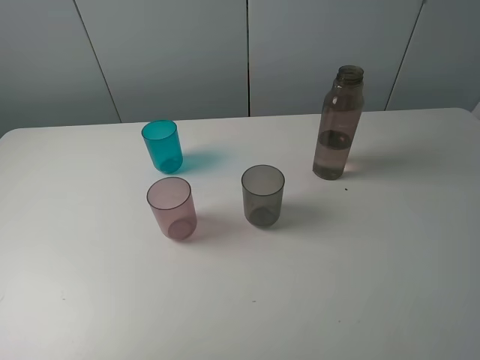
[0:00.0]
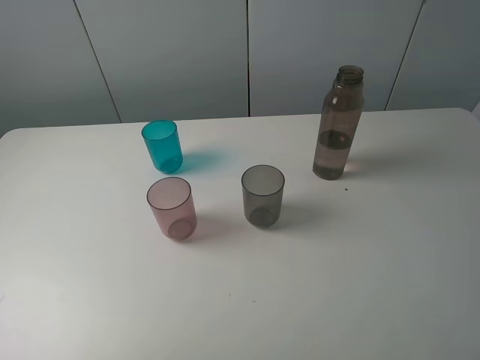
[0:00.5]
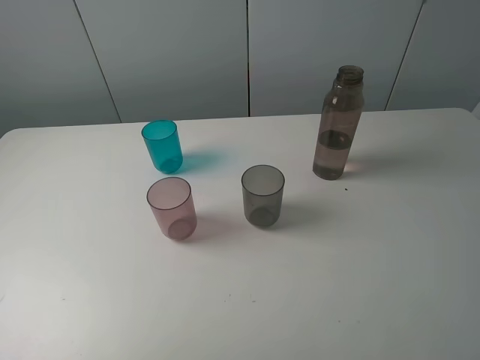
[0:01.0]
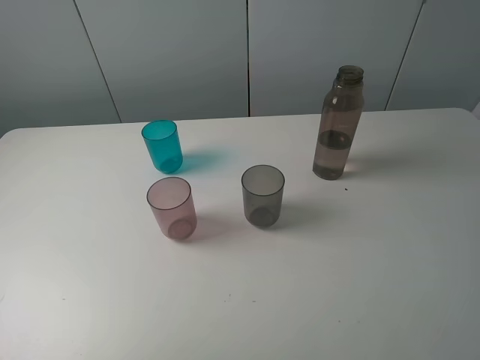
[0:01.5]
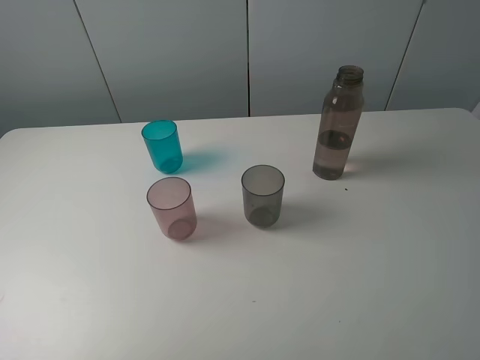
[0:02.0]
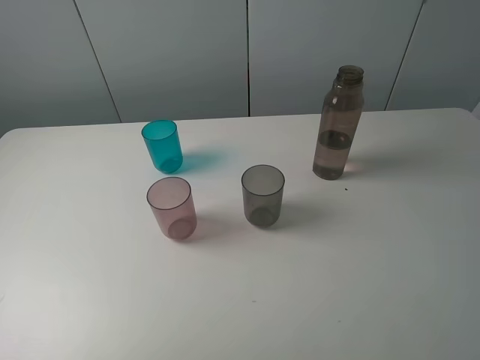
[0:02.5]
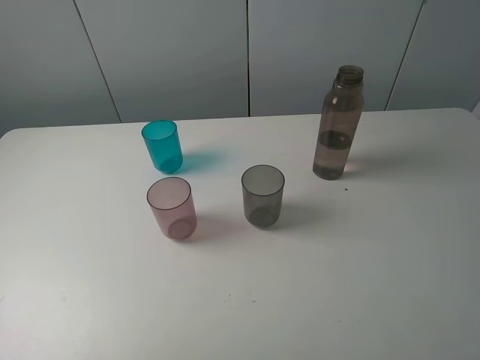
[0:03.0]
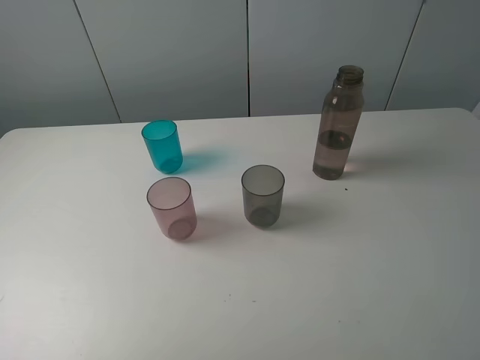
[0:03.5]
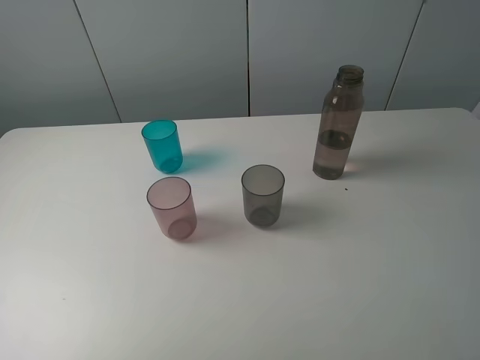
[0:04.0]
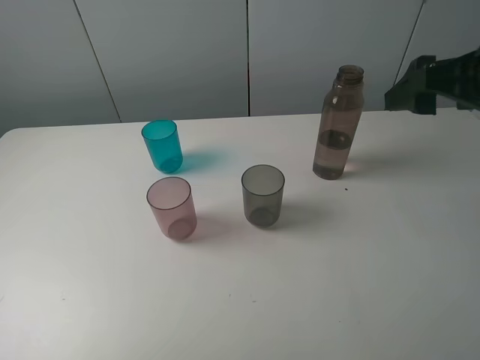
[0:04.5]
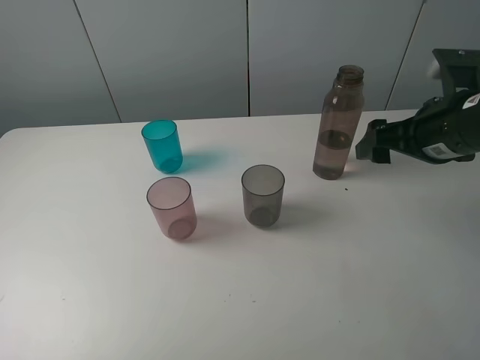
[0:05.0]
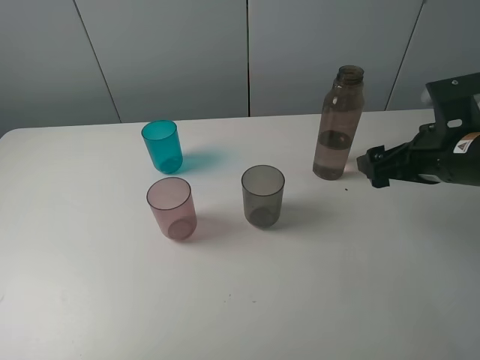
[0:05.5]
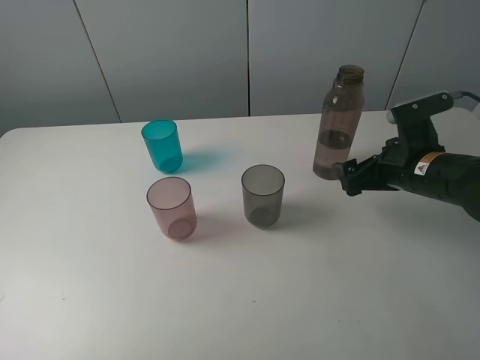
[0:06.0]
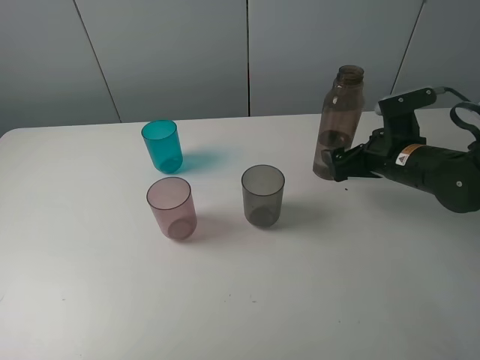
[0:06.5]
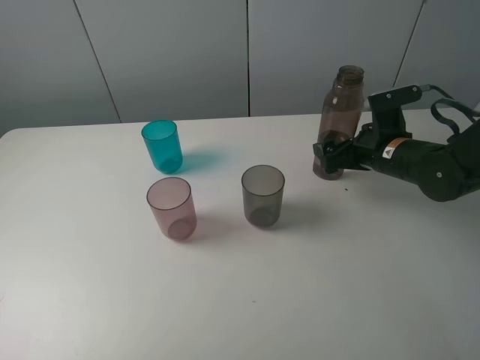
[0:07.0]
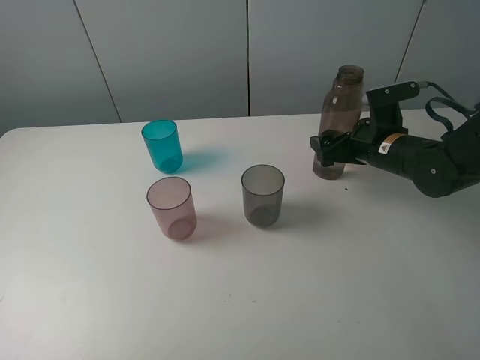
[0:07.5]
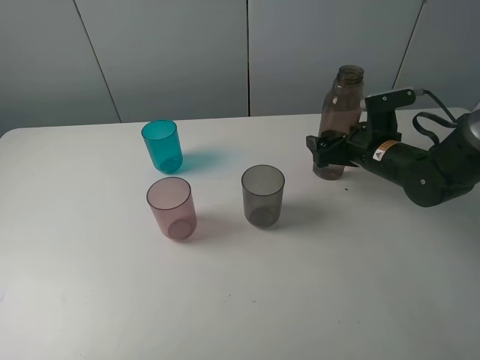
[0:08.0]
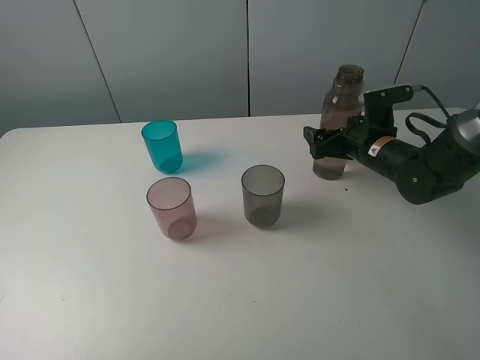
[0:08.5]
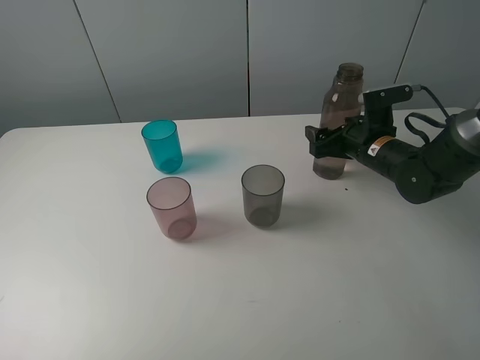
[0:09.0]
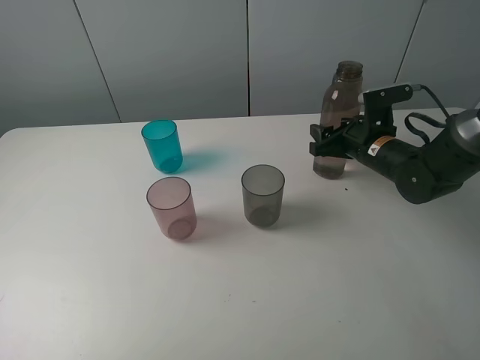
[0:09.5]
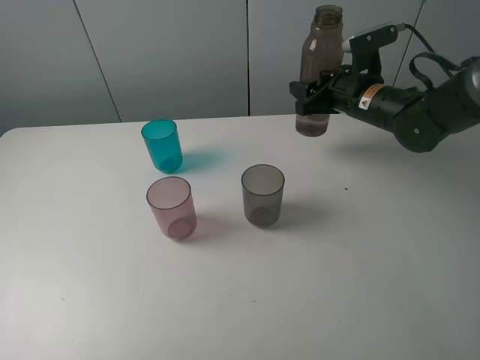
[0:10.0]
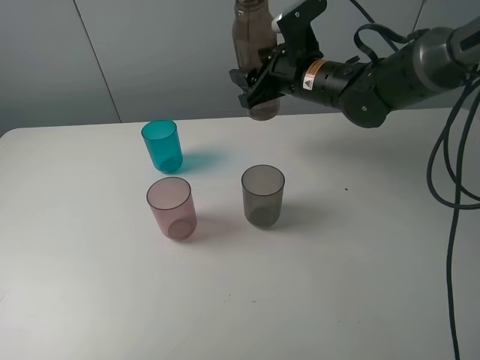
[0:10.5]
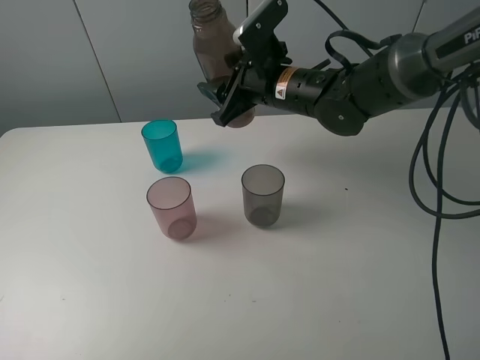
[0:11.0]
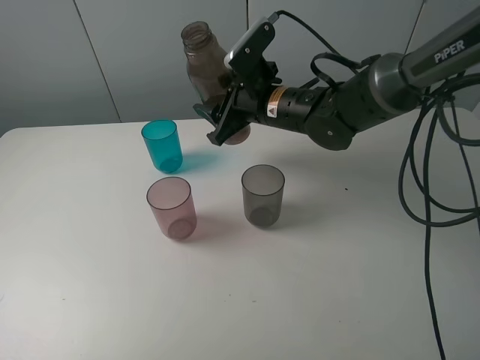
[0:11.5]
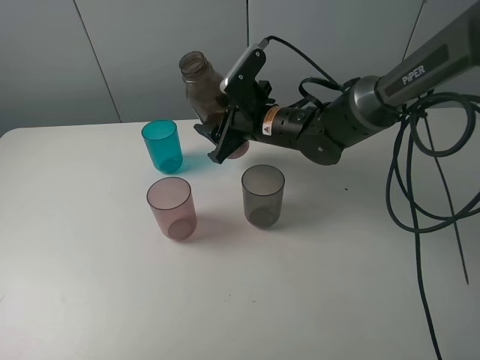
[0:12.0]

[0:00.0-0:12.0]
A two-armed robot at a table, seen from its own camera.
Task of the whole recording: pick up the bottle filled with water and pour water into the middle cup of the three cups.
Step, 0:00.0 to 0:09.0: Grasp the brown bottle with the right gripper.
0:00.0 to 0:02.0: Both grippers stay put.
0:04.0 to 0:06.0: The right gripper shifts approximately 25 cm downward and forward.
0:06.0 to 0:08.0: The right gripper heads forward, covering some 5 cm.
0:08.0 to 0:10.0: The right gripper shifts roughly 10 cm upward and forward, and closes.
0:10.0 to 0:12.0: The right gripper is displaced to the left by some 15 cm.

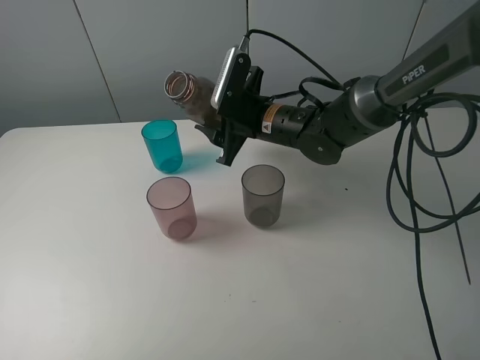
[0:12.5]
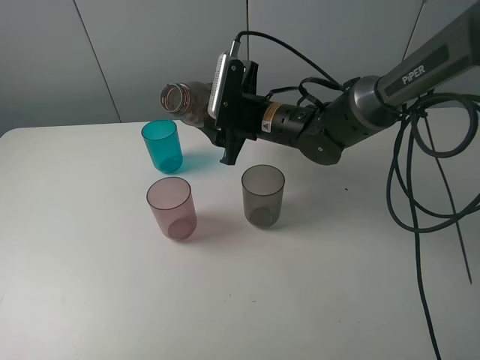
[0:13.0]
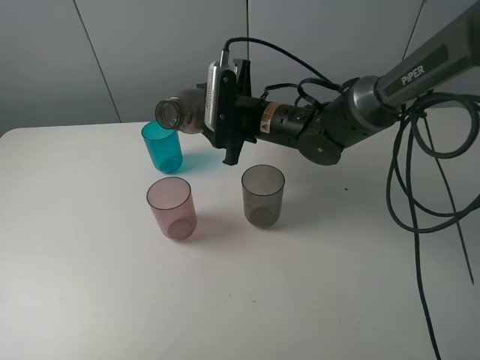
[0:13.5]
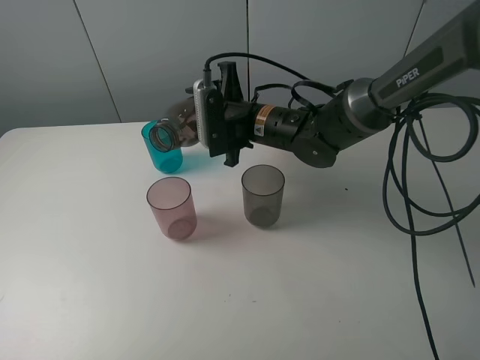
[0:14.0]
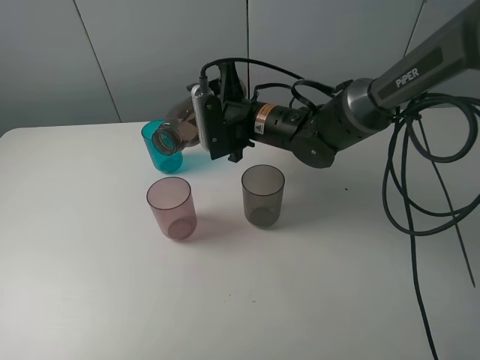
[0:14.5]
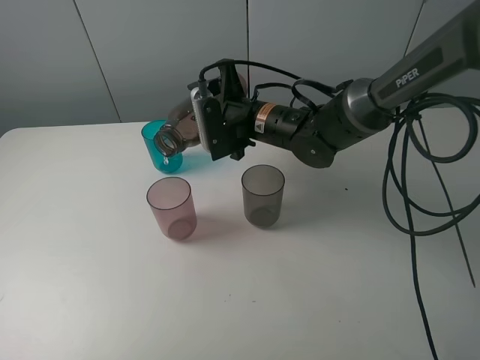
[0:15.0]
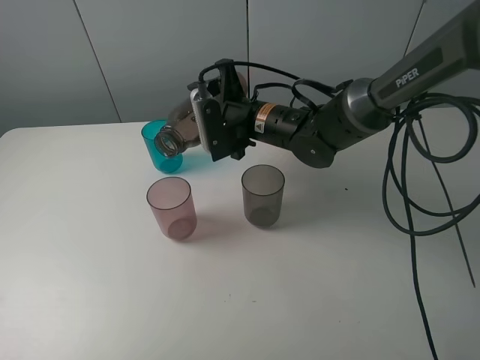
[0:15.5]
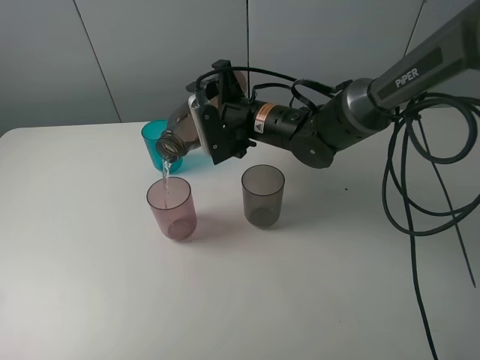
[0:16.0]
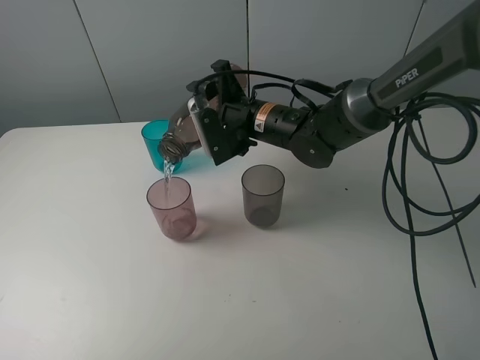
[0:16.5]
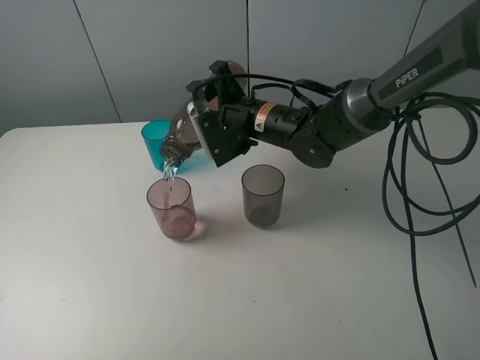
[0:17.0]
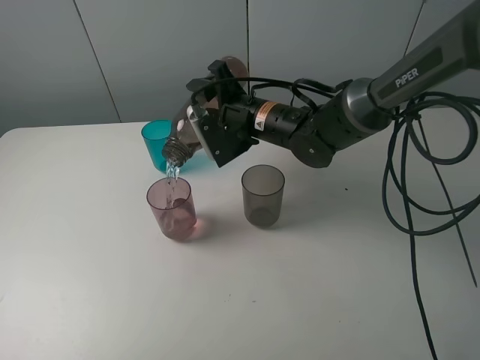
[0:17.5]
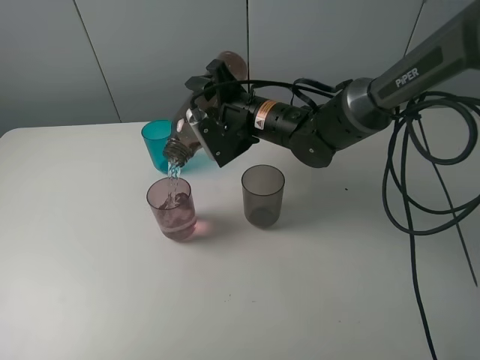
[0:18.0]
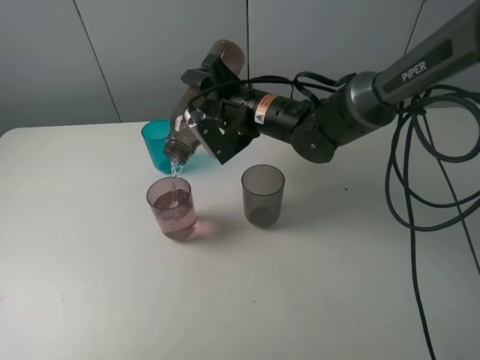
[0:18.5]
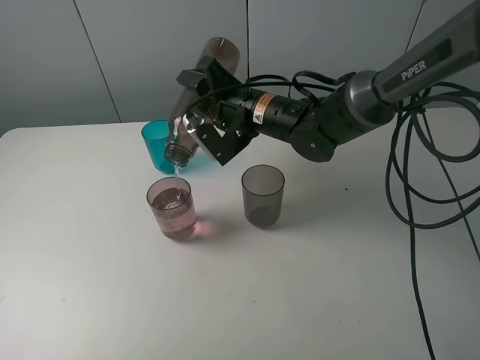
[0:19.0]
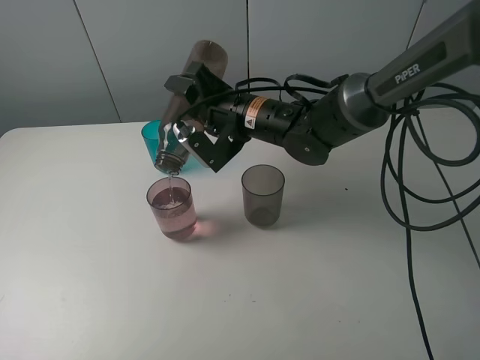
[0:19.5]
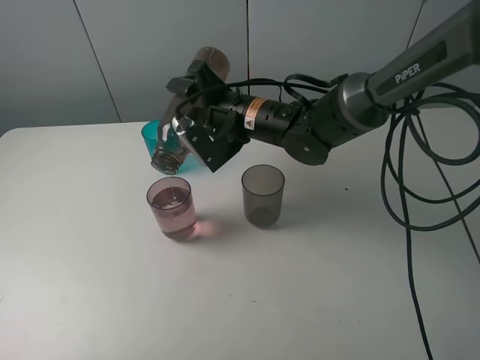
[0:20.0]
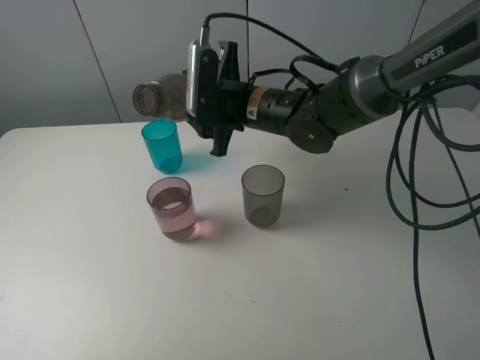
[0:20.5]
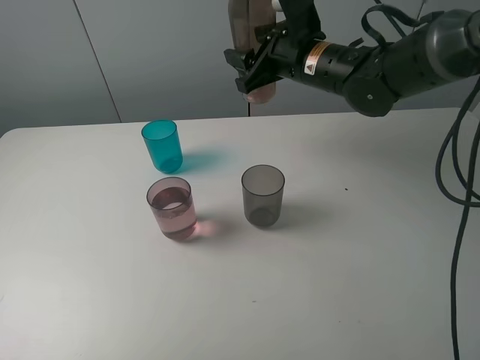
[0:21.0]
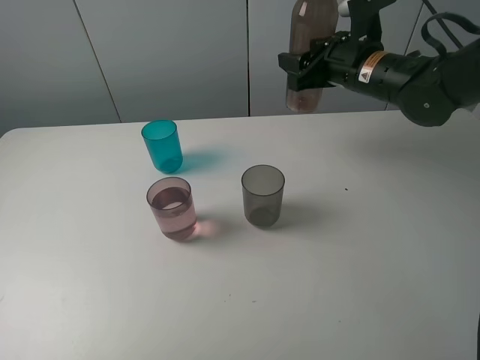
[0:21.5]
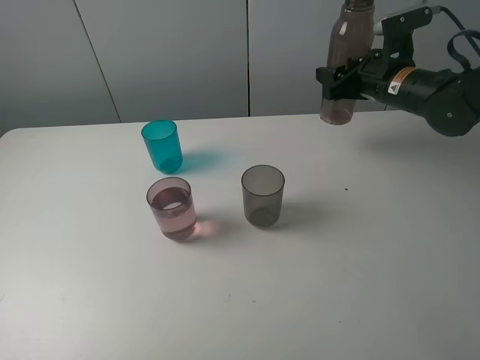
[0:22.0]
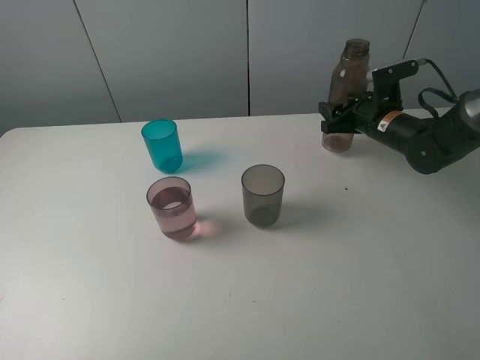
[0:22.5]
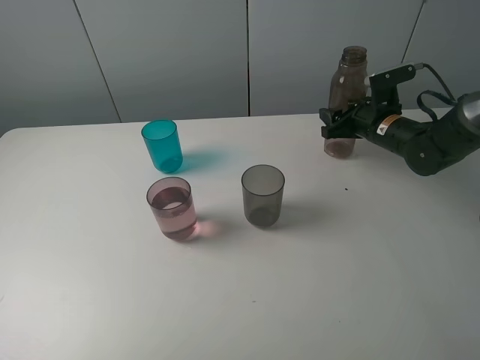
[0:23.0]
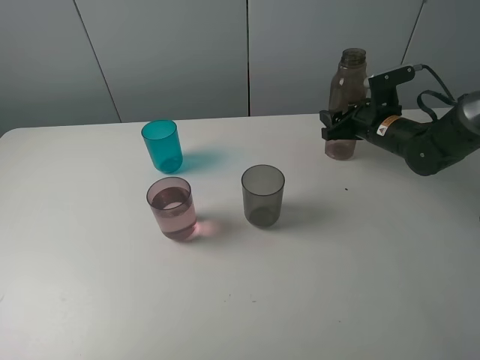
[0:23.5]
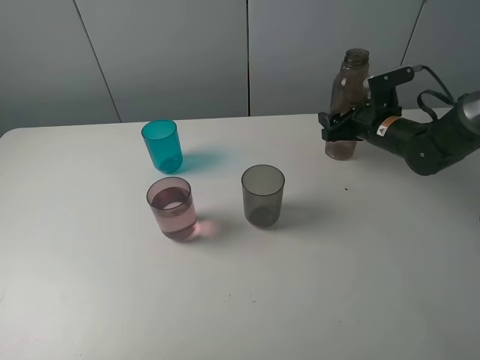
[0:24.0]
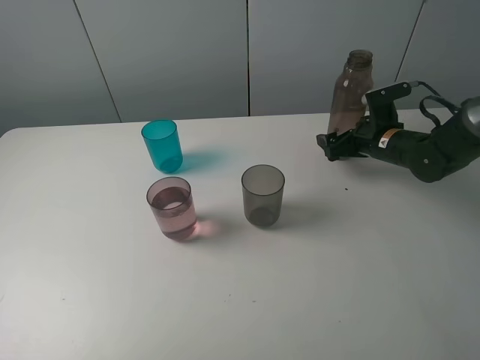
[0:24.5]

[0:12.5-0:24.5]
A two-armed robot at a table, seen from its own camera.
Task of the whole recording: pick up the bottle filled with water and pour water into the middle cup of the three cups.
Step, 0:12.5 to 0:15.5: Pour water from transparent bottle to red cup with the right gripper.
0:14.5 to 0:16.5: The grippers move only a little.
0:16.5 to 0:18.5: The grippers stay close to where they were, moving slightly.
0:20.5 to 0:22.5: The right gripper shifts roughly 20 cm to the right.
0:22.5 to 0:24.5: The right gripper opens.

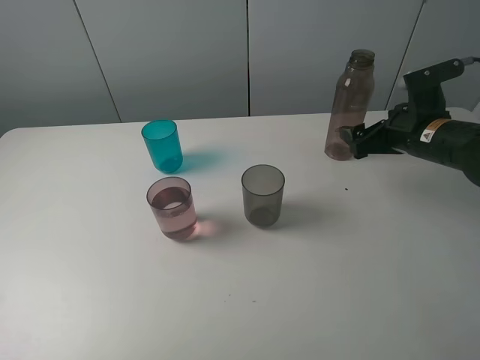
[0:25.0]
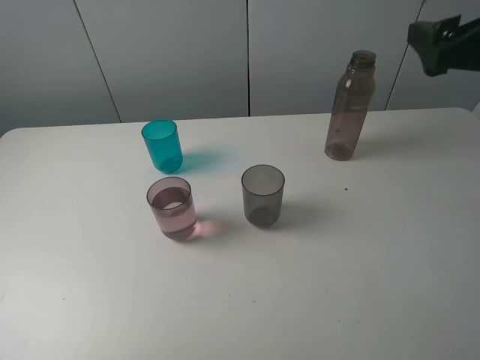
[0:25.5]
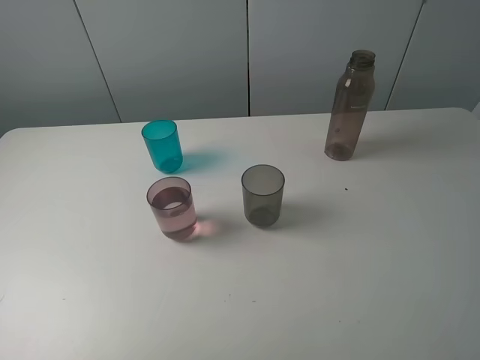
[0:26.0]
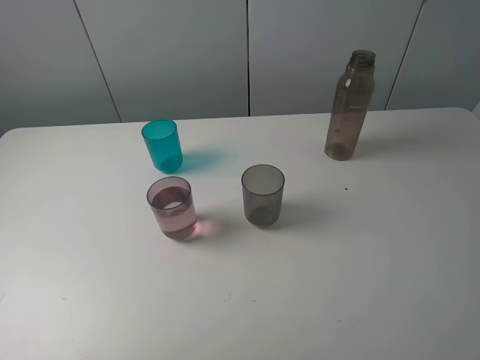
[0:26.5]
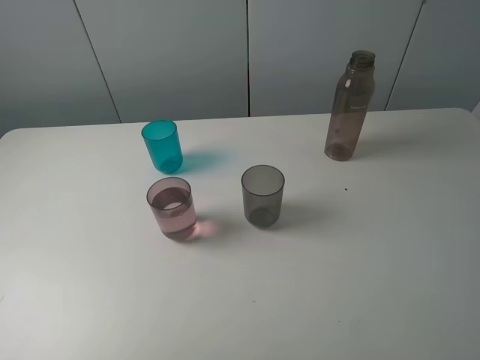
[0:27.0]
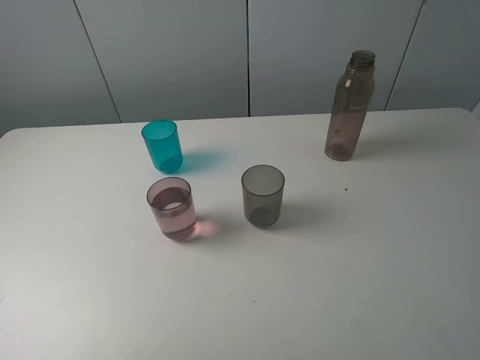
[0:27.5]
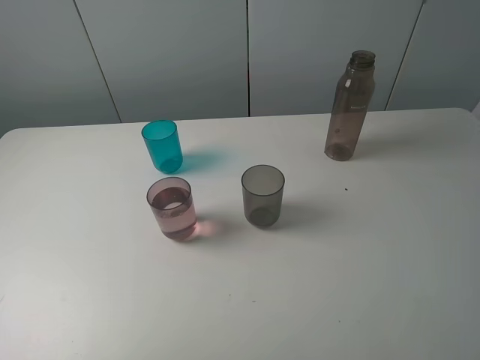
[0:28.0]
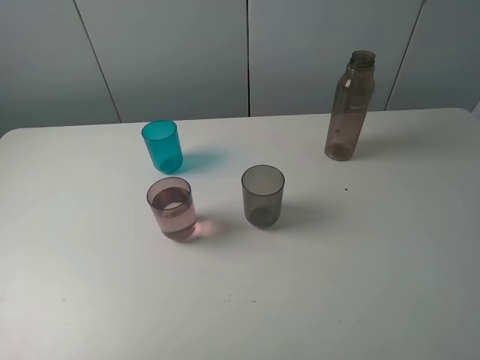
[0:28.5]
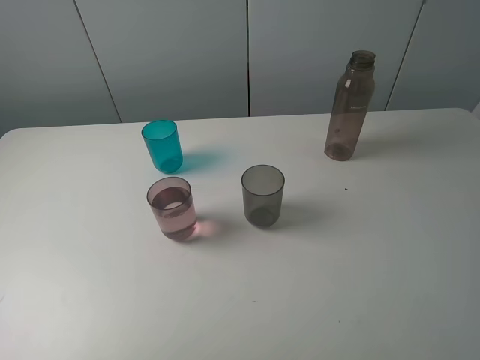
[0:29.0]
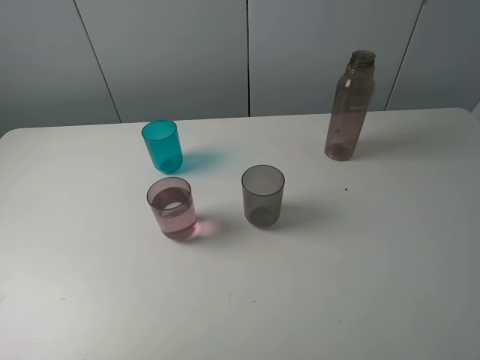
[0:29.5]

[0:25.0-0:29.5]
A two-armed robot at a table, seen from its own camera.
Task of the whole recording: pick up the bottle filled with water and pour water into the middle cup of the three cups.
0:25.0 to 0:27.0: The right gripper shifts about 35 cm backward and upward.
0:27.0 to 0:29.5: Neither gripper changes place.
